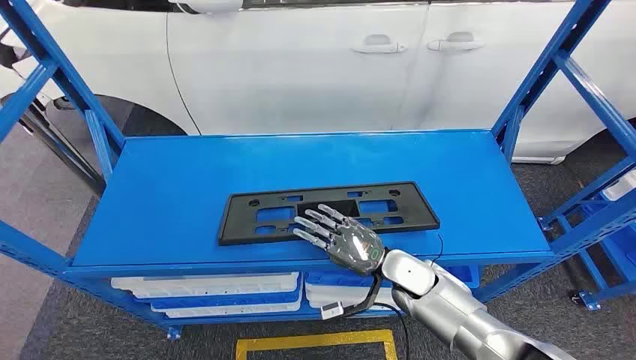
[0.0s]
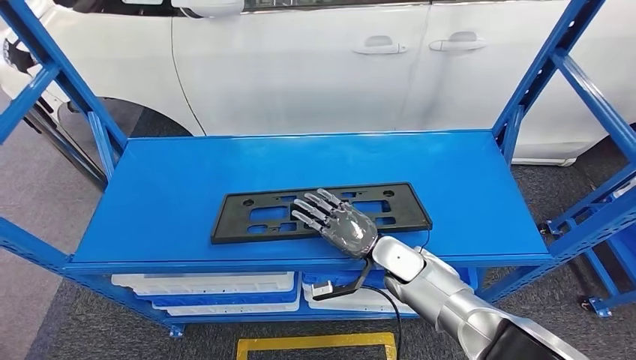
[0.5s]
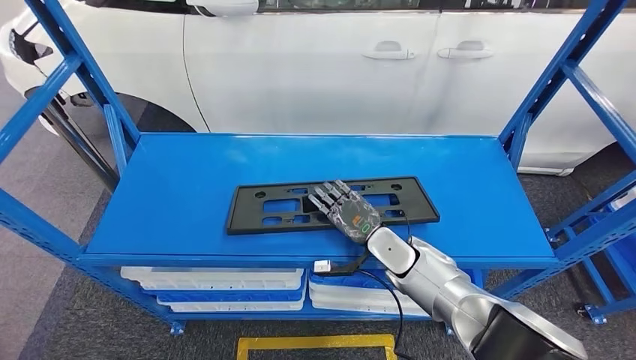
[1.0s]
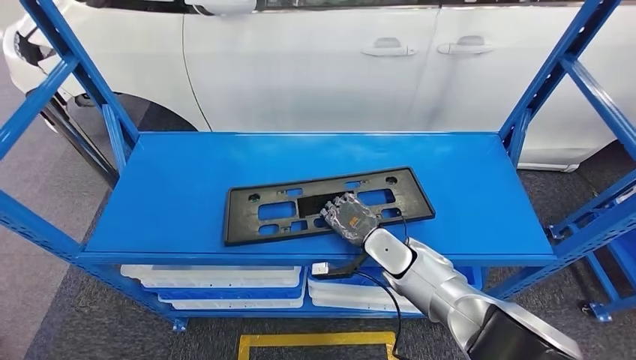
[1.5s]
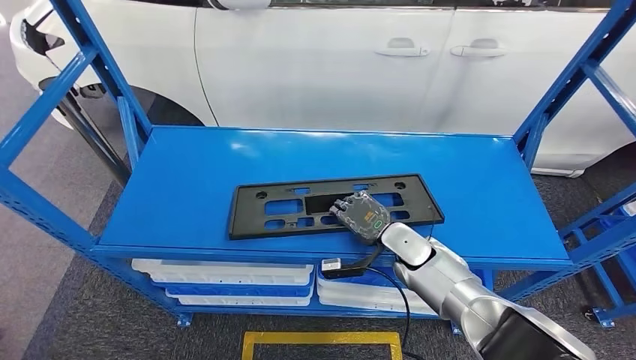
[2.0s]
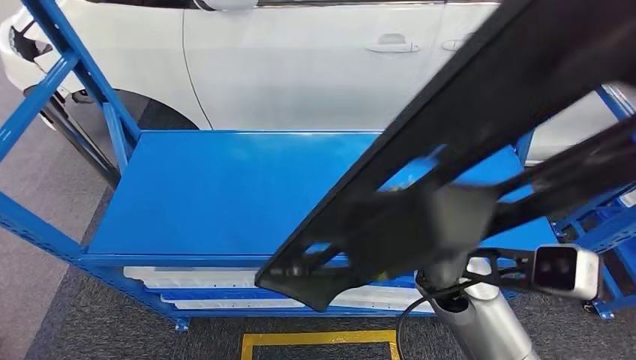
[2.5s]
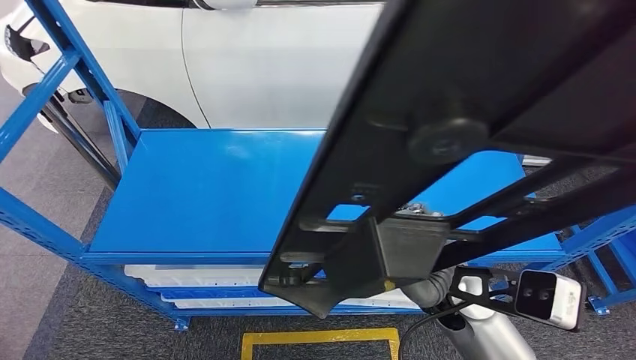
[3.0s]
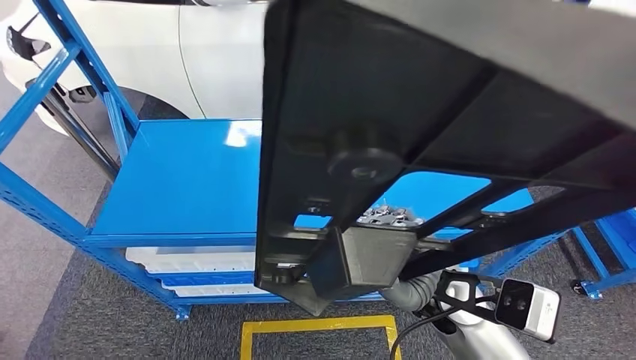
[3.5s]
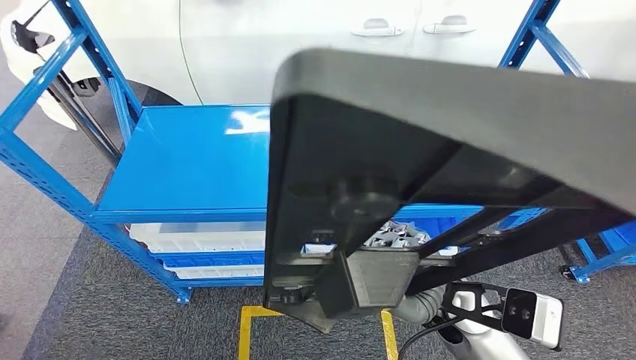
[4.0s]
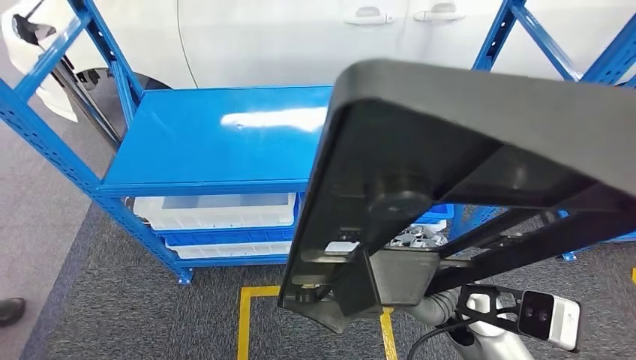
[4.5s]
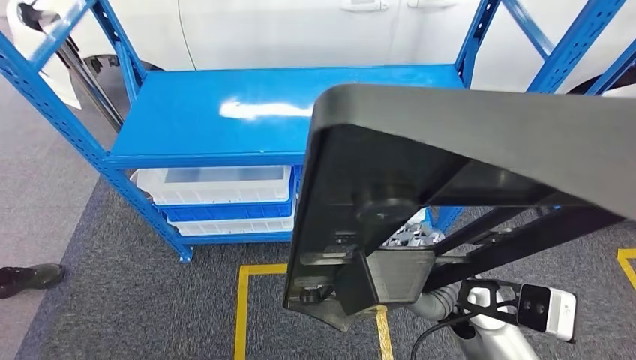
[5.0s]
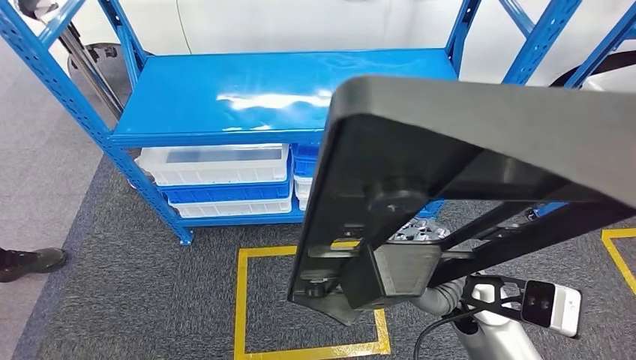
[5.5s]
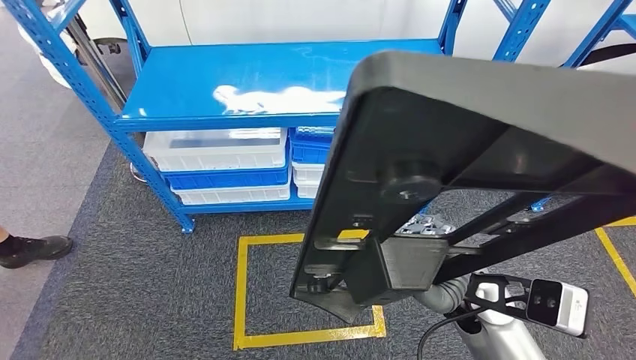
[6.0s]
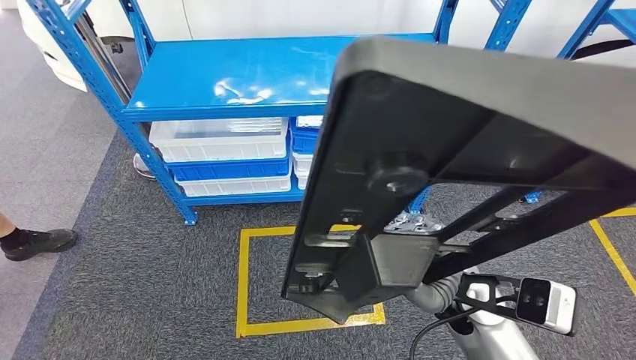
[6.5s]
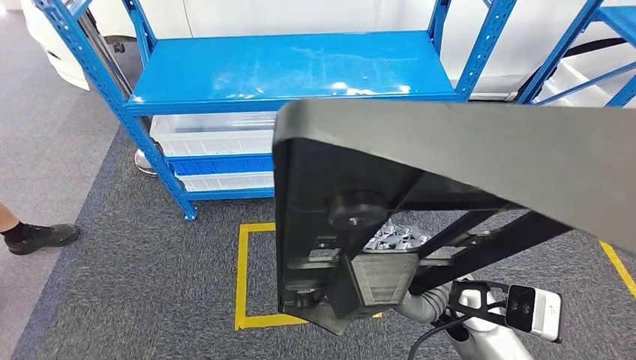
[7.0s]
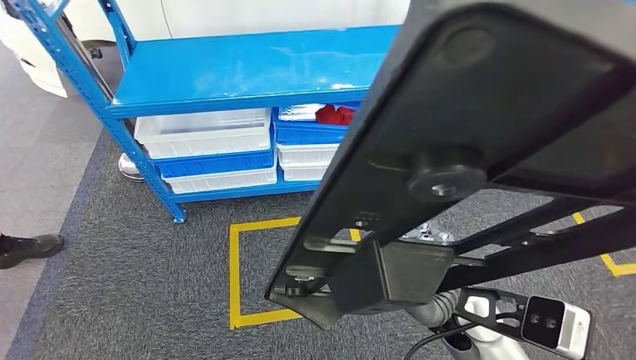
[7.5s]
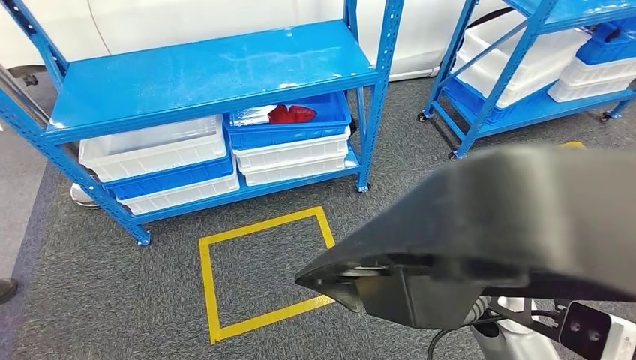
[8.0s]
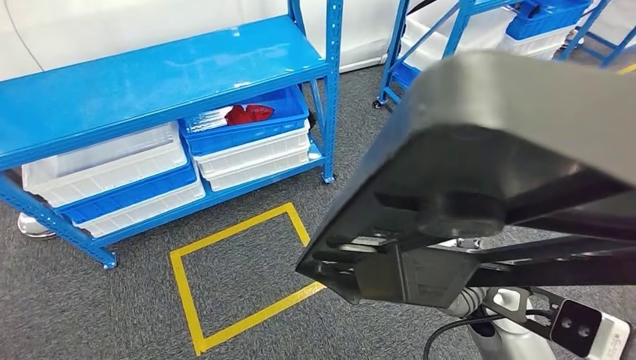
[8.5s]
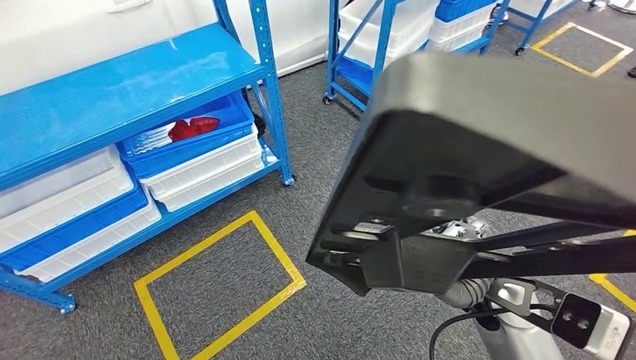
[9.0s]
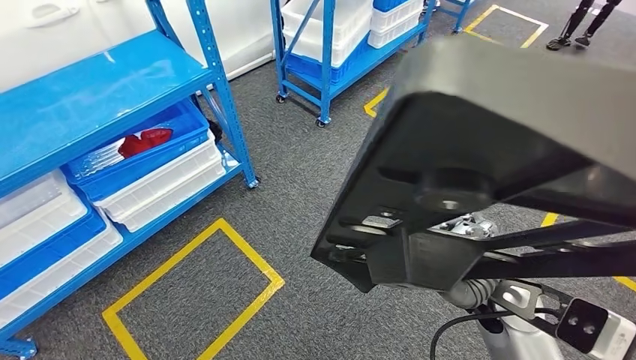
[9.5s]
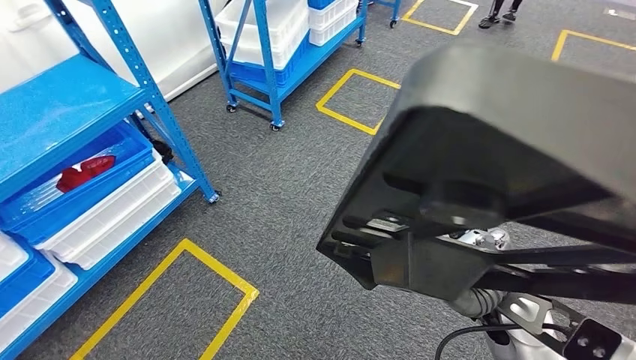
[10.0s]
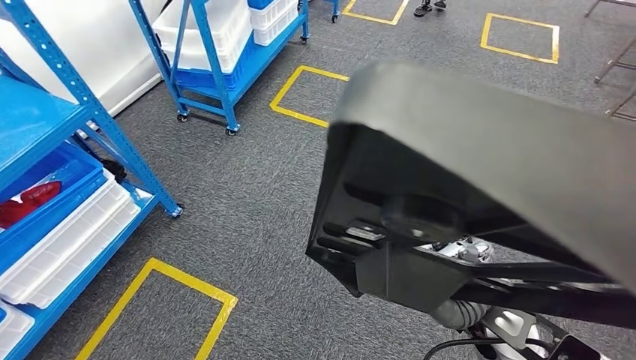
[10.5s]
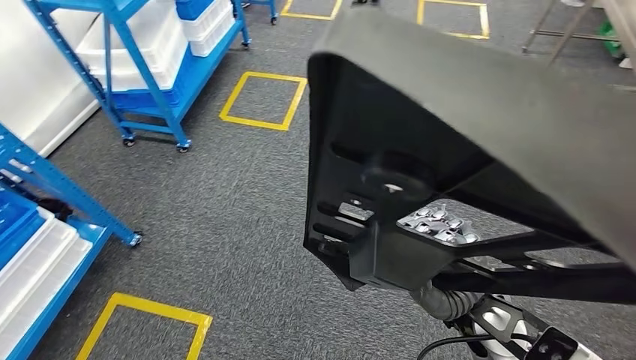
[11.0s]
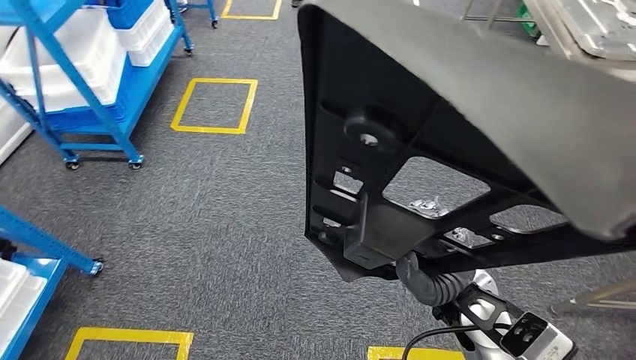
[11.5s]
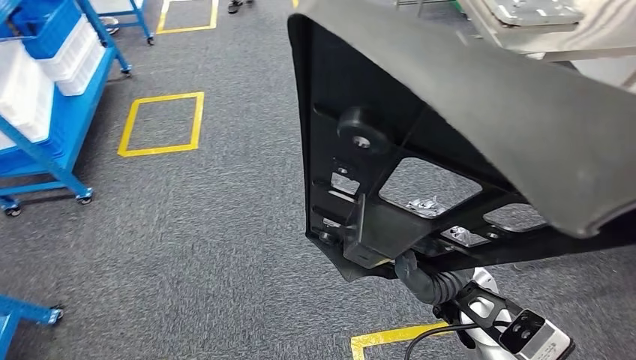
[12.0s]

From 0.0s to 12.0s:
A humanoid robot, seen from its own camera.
Step, from 0.0s to 3.0s: Pick up the large material from the shelf.

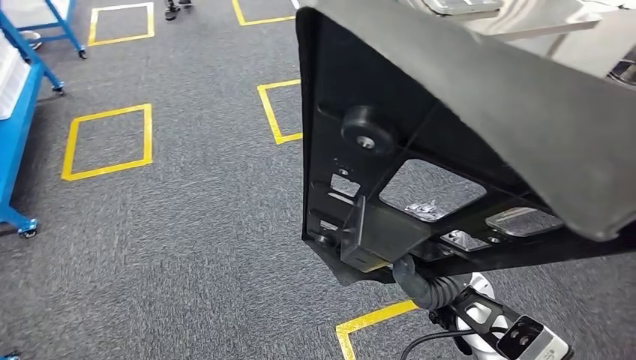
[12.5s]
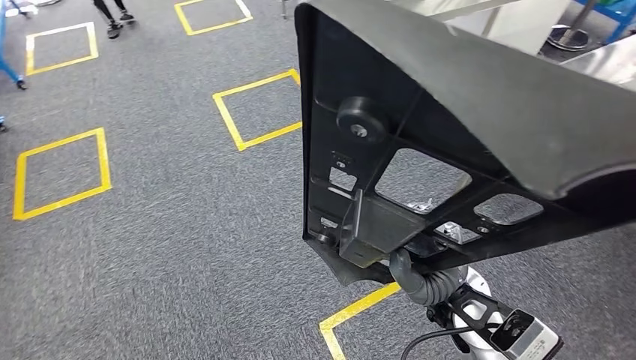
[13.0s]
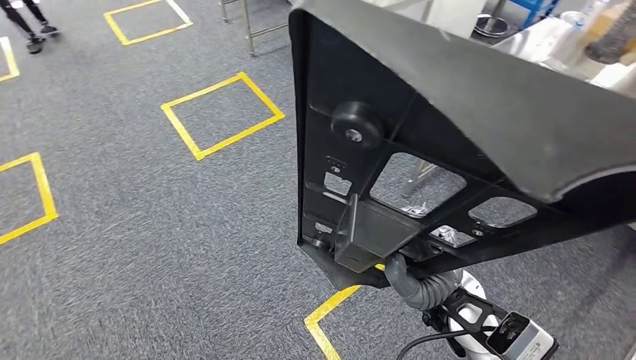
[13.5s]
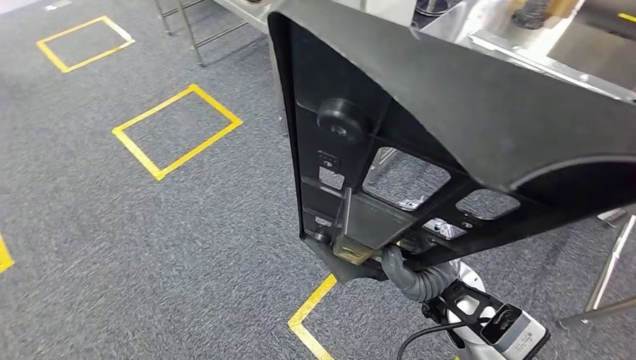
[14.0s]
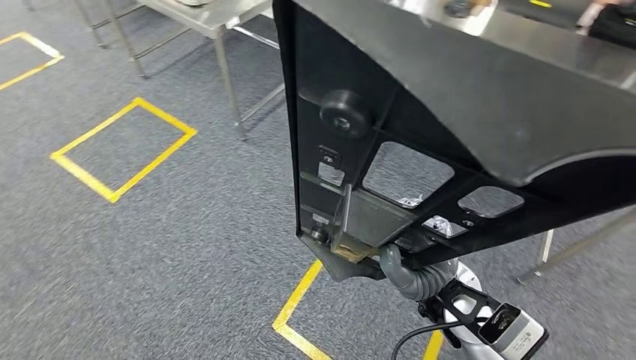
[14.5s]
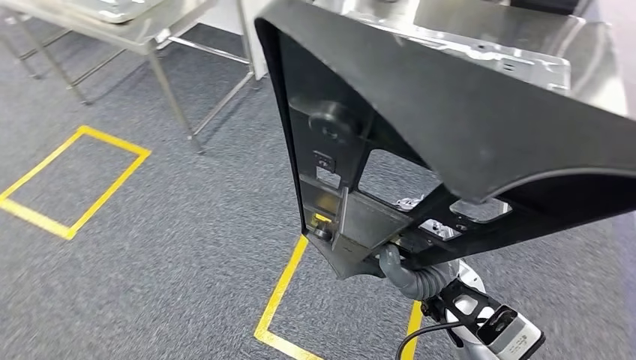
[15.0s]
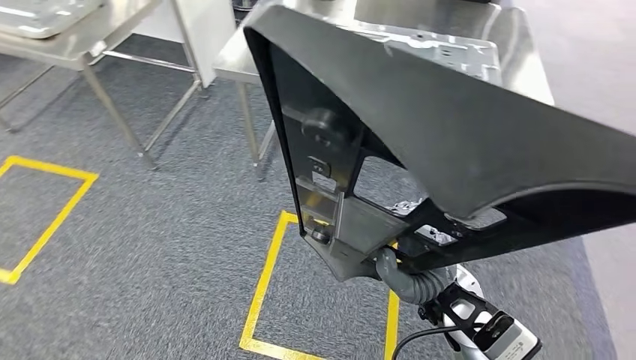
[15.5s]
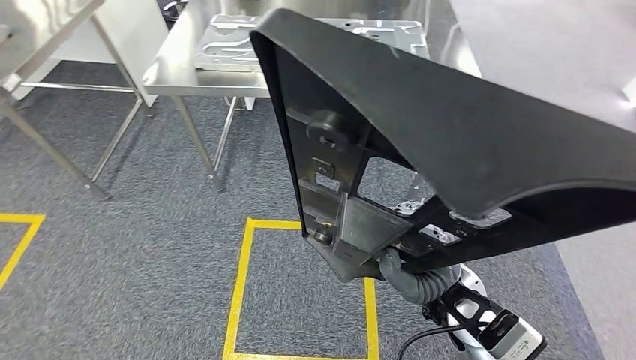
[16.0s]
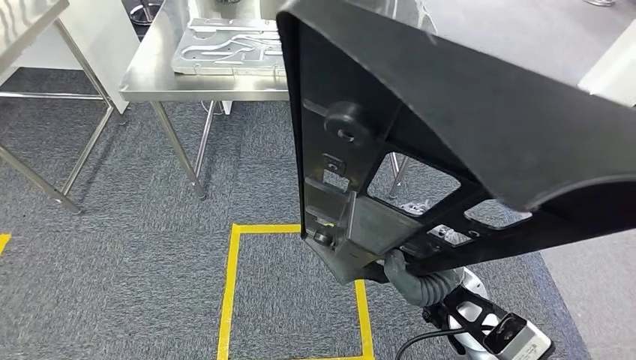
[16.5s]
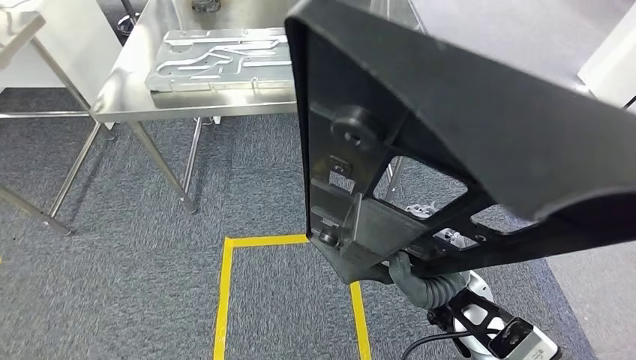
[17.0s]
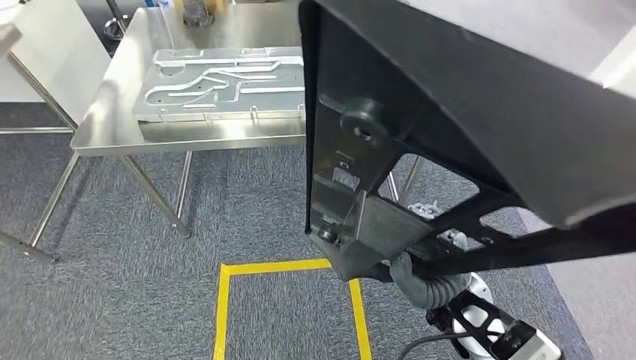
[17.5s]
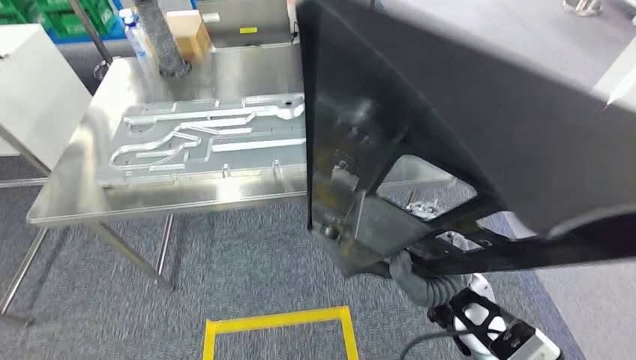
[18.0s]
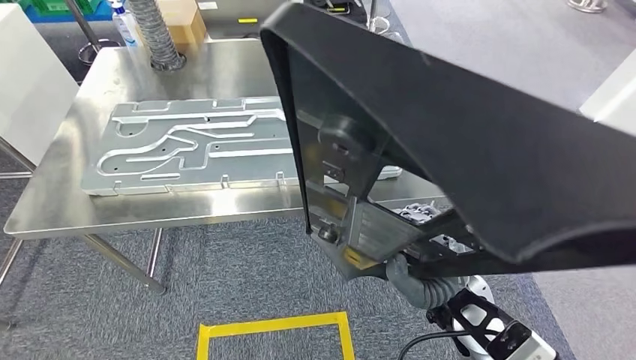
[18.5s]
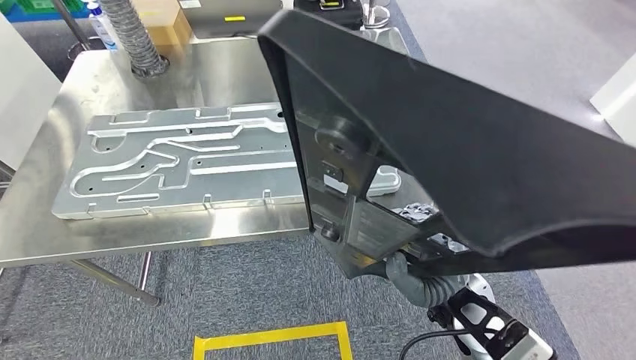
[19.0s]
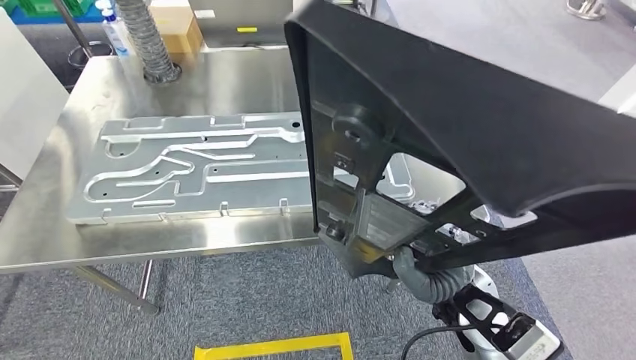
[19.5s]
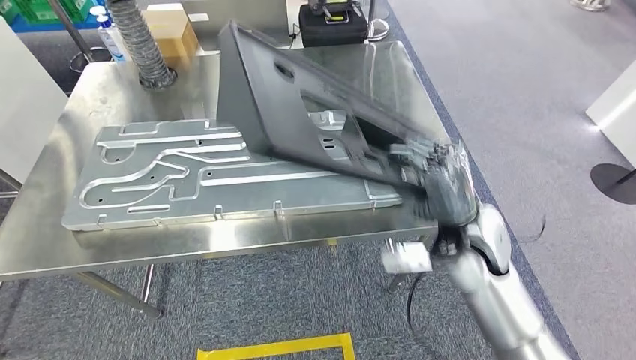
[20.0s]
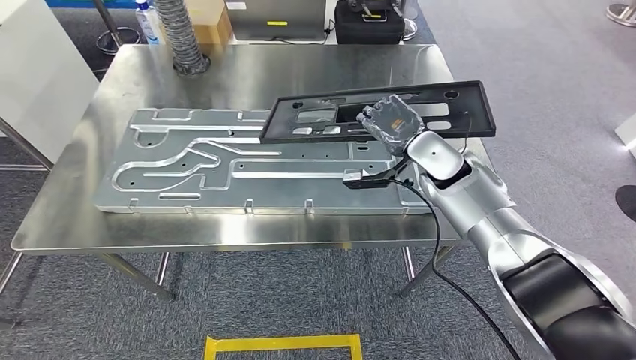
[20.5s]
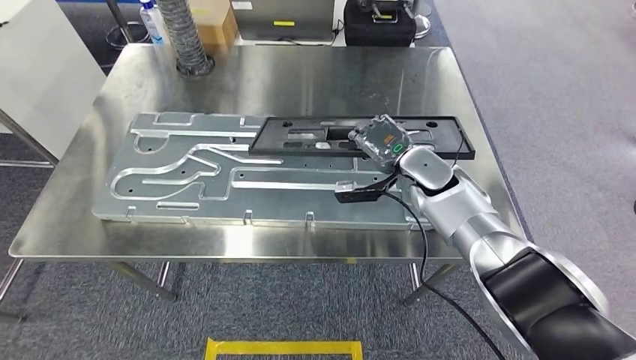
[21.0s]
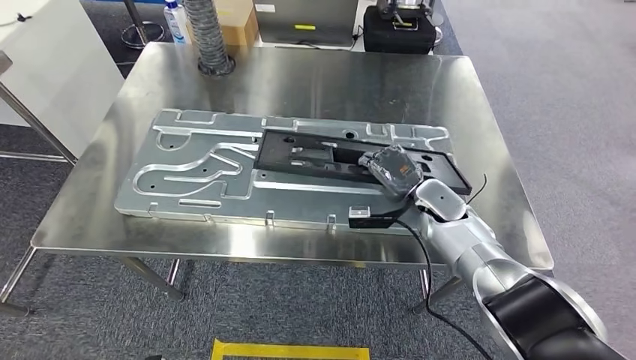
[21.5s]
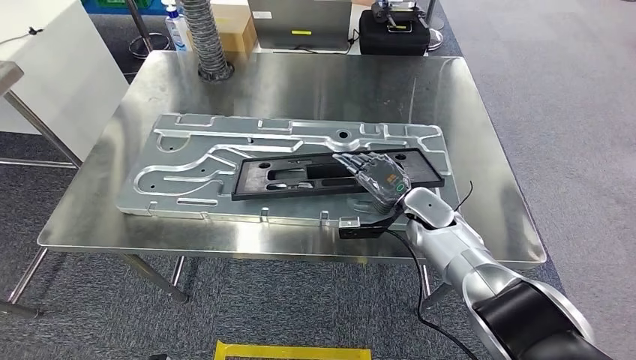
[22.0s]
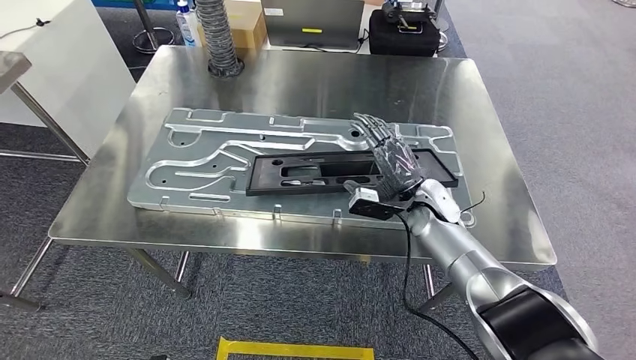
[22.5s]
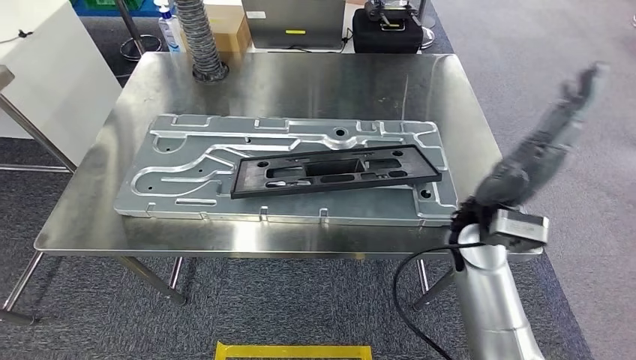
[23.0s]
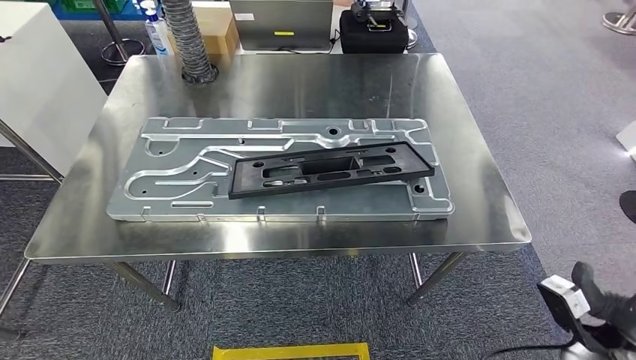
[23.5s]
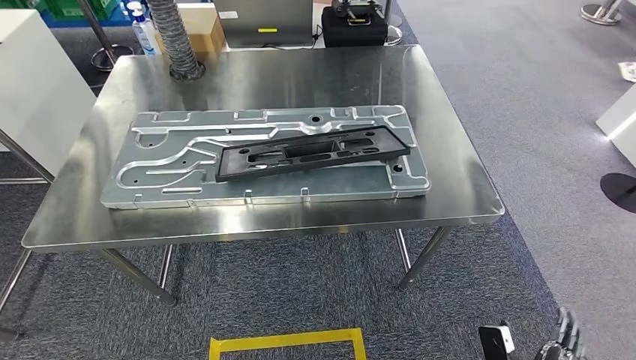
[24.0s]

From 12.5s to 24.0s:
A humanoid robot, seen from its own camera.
Step, from 12.5s to 19.5s: Move the large material to the workbench.
Step, from 20.0s to 22.5s: Insert the large material into the corresponding slot on the workbench.
